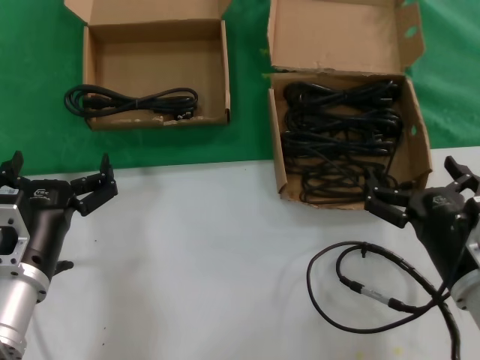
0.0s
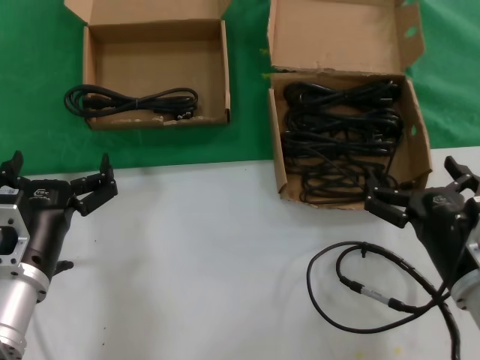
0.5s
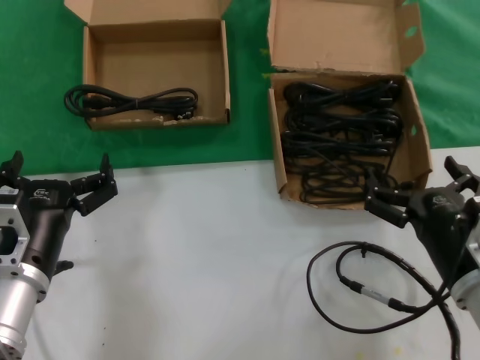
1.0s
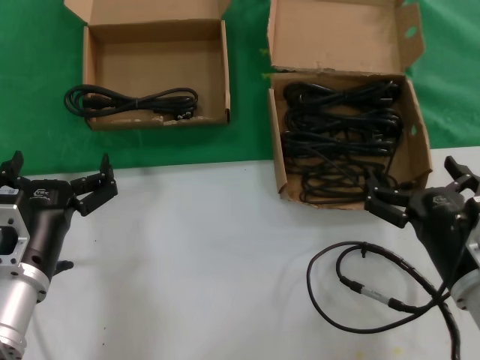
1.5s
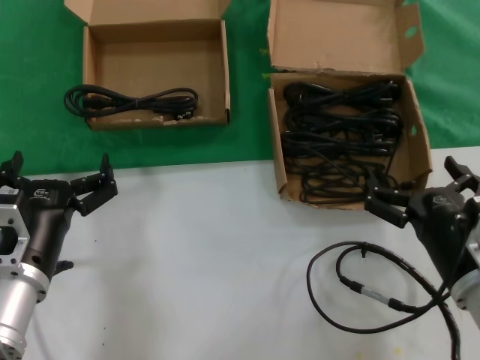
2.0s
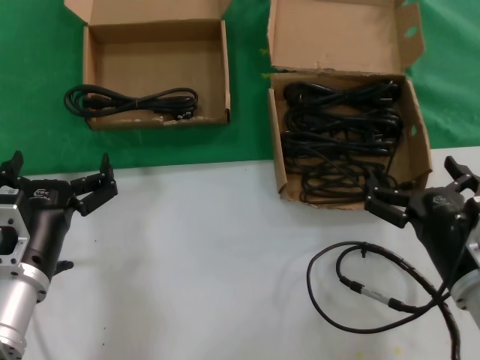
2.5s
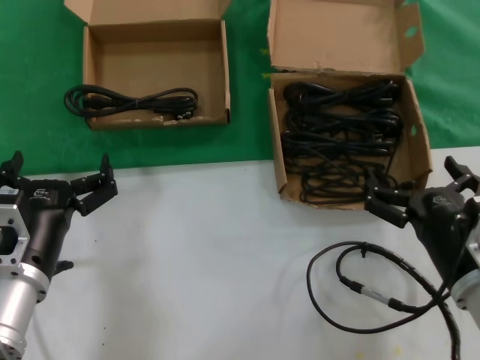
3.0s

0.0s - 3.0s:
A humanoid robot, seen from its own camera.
Task of the whole recording: take the parts from the box containing them and put them into an empty box.
0.0s - 3.0s: Both hands stay about where they are.

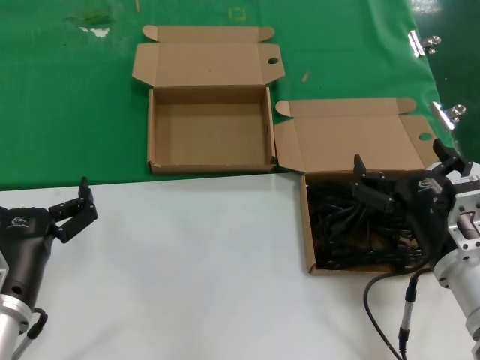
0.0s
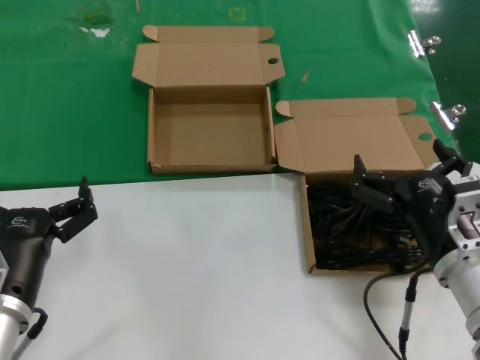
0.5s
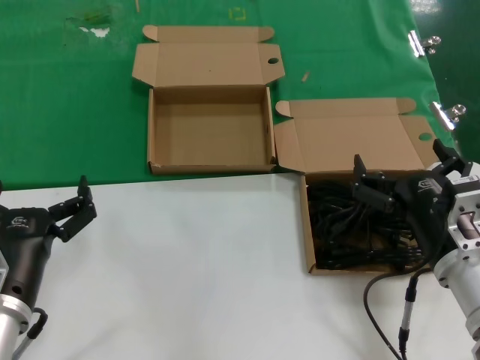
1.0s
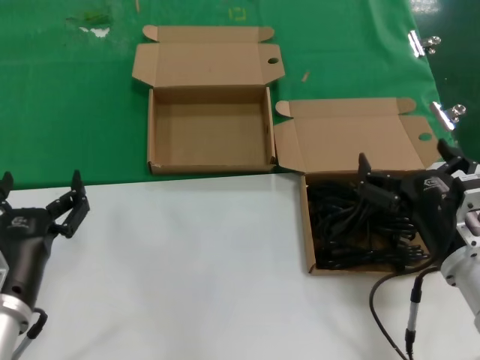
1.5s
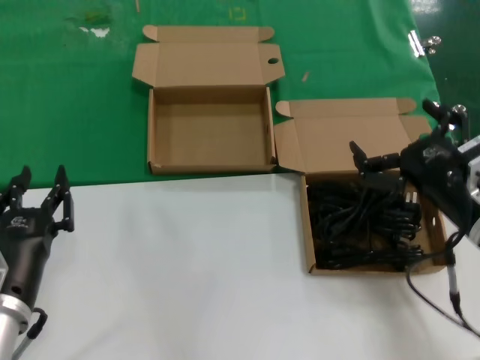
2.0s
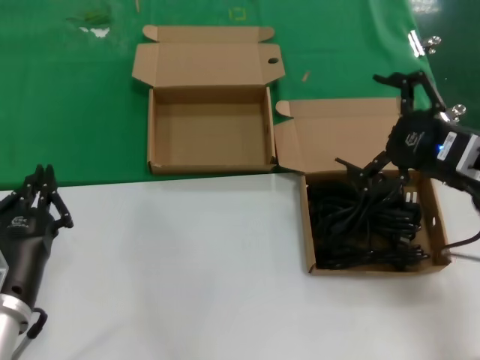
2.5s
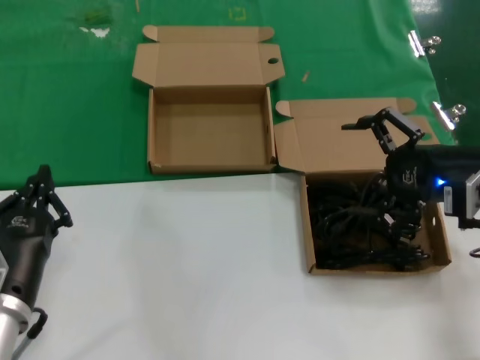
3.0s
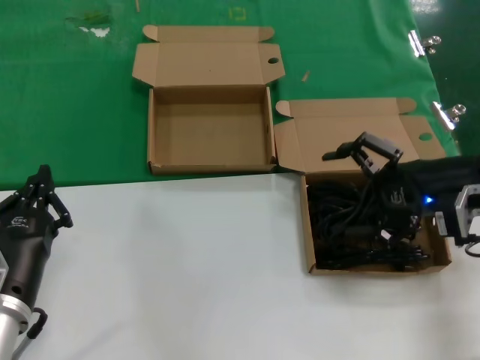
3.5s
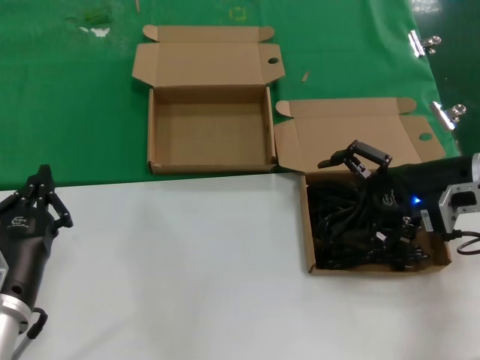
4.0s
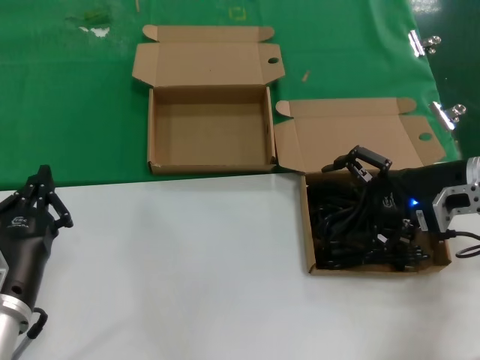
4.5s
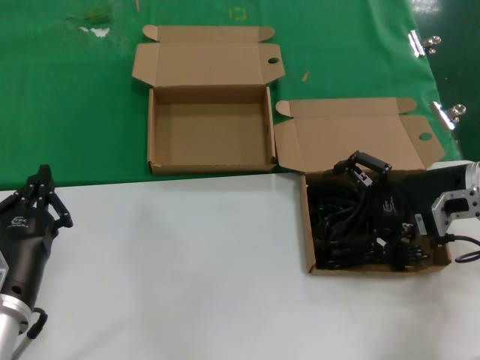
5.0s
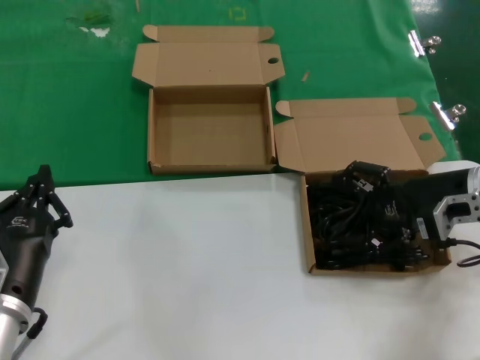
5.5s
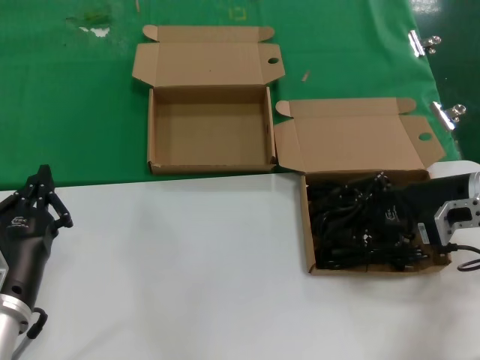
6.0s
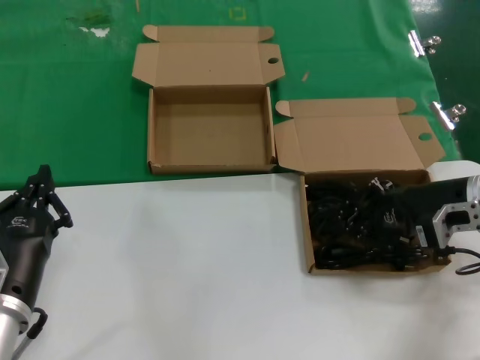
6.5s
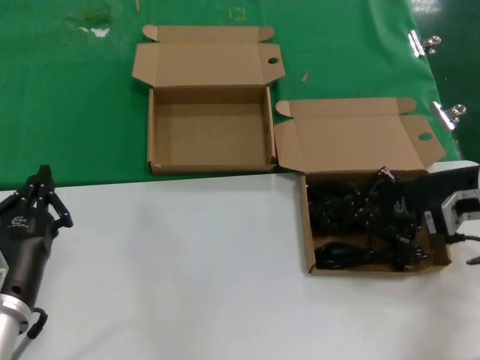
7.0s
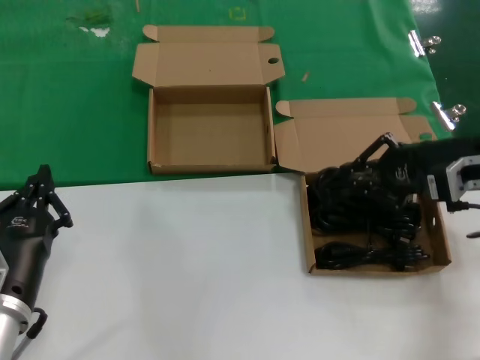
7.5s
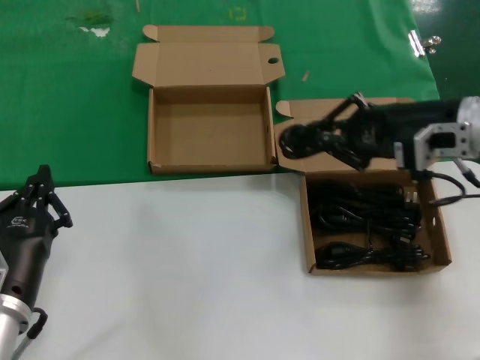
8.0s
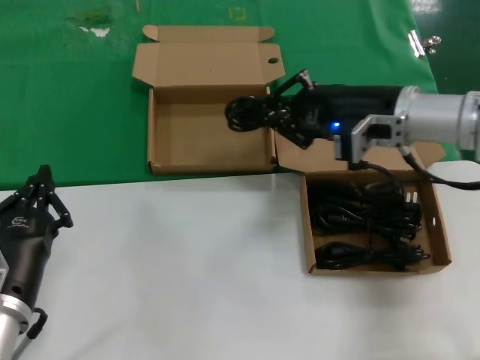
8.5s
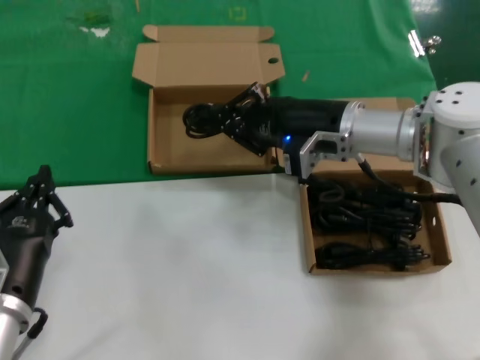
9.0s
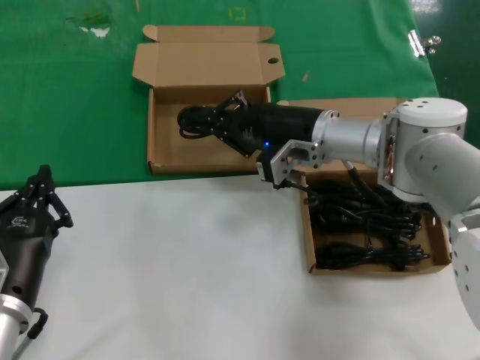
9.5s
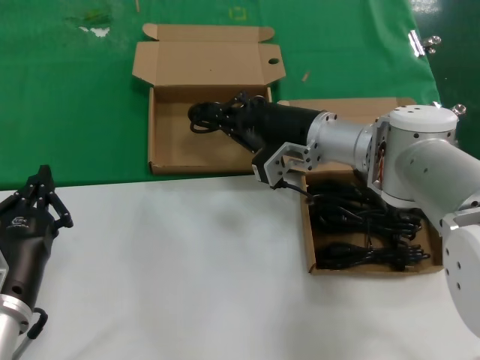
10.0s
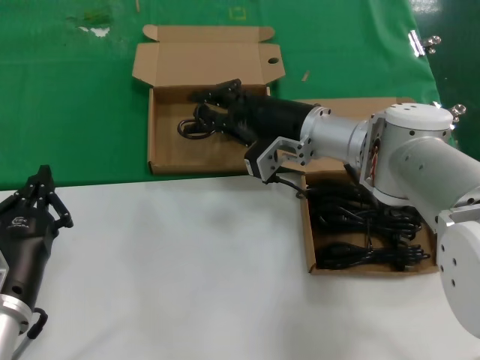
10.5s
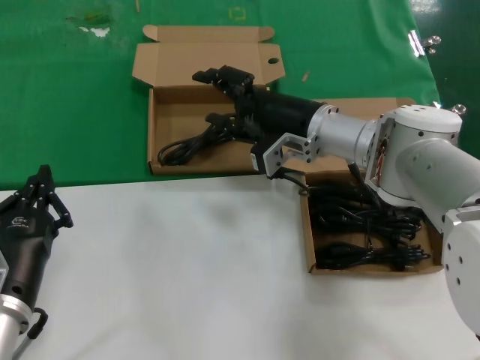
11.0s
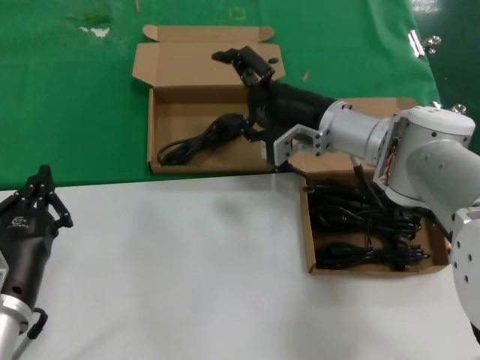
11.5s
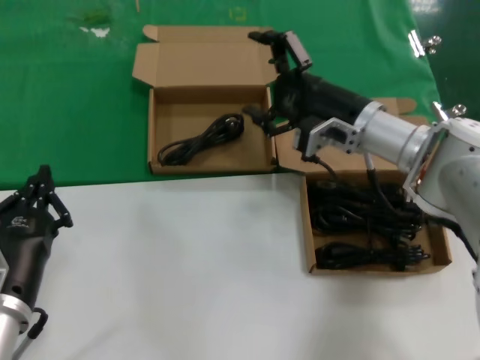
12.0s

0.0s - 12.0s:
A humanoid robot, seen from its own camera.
Task of the whole recording: take the parts from the box containing them and put them into an empty box.
Step, 0.0s - 6.0s: Grasp the data cable.
Step, 6.5s - 11.0s: Place the data cable in the another box.
0.0s - 2.0s: The right hand changes place by some 5 cm.
2.0s - 4.0s: The right hand shifts some 15 cm forward and to the right.
4.0s - 6.0s: The hands stay close to where they were, moving slightly.
6.0s - 8.0s: The right hand moves upward, some 10 cm.
8.0s - 10.0s: The right hand travels to the left, downward and forward by approximately 20 cm.
10.0s - 12.0s: The right hand moves to the right, about 5 cm.

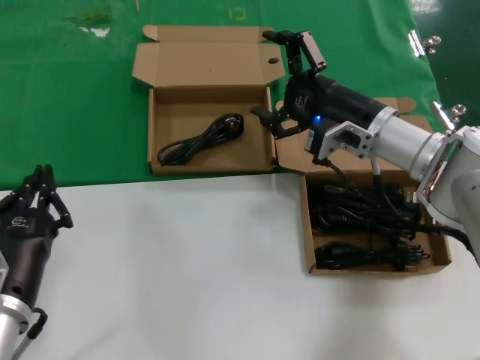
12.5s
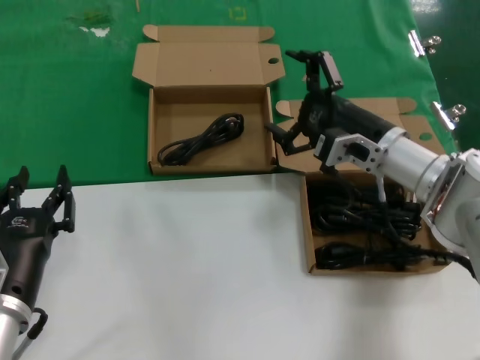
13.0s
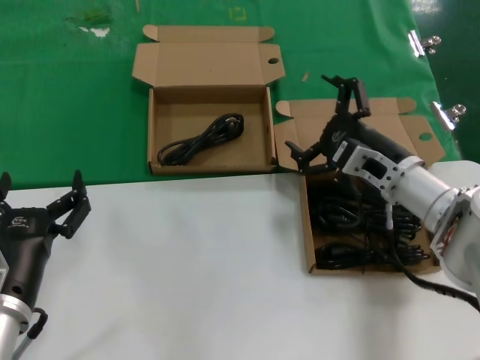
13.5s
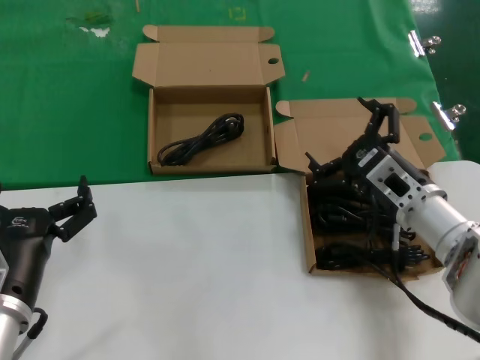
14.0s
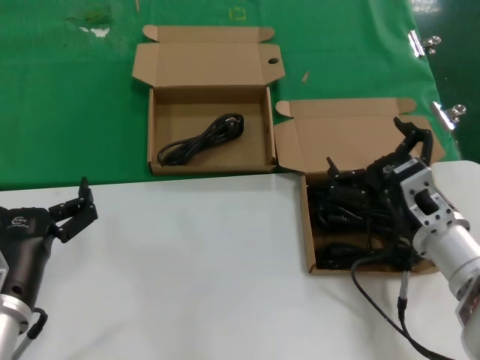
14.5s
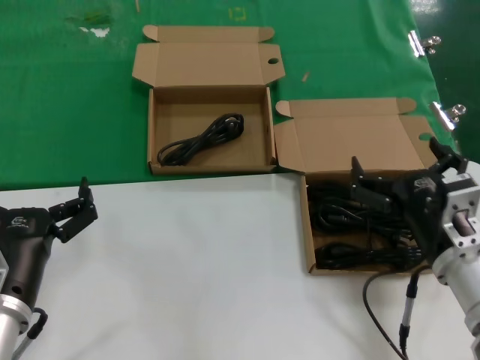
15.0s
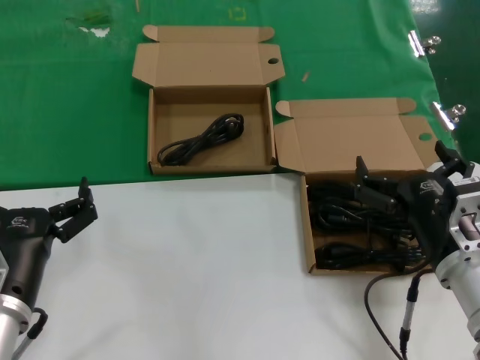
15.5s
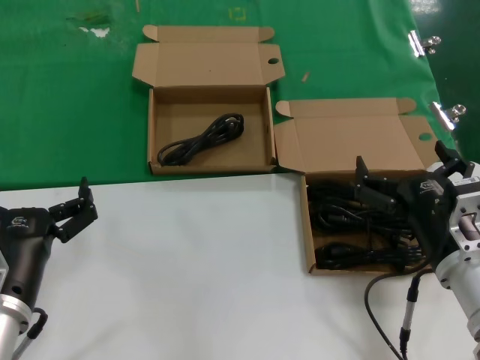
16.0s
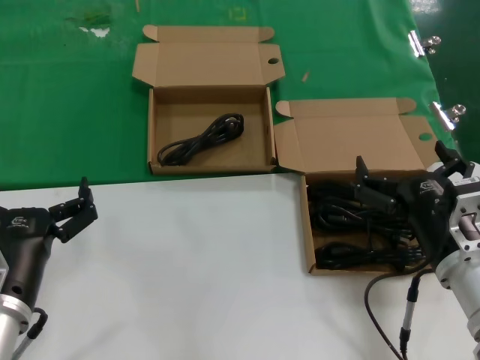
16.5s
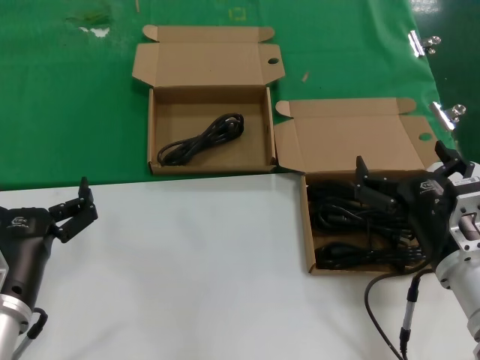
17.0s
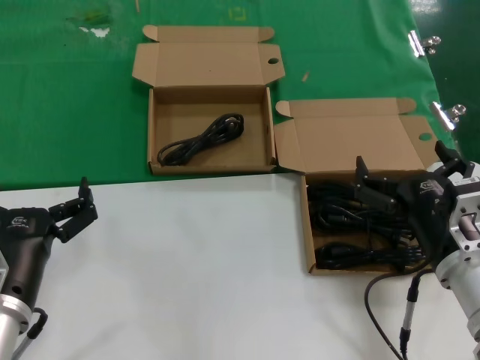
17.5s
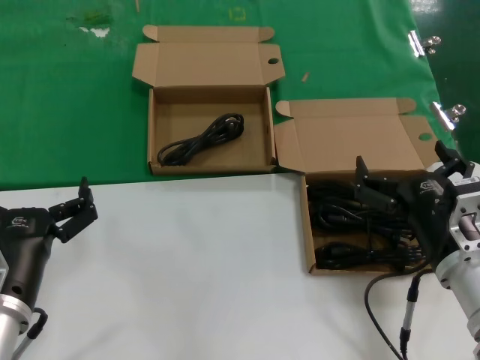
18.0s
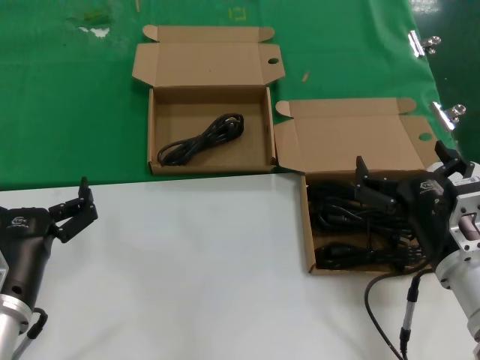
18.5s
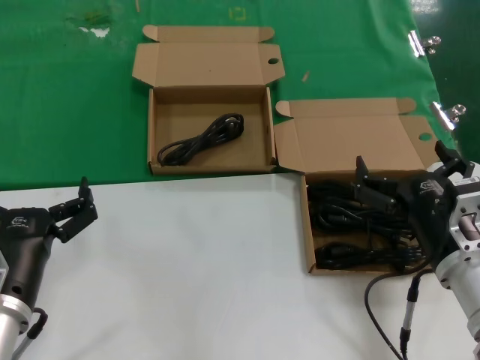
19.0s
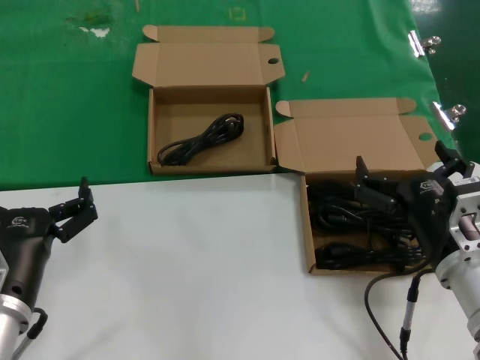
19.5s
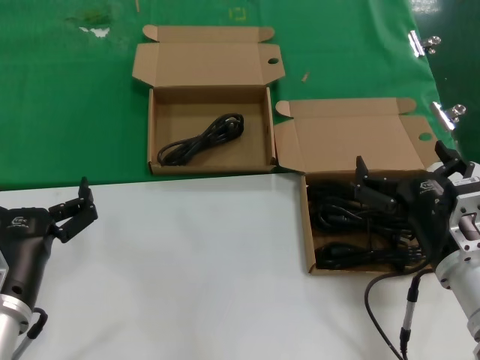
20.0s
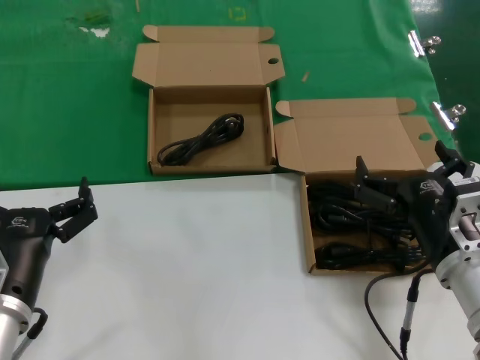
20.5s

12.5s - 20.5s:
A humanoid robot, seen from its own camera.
Task of the whole recording: take the parts from the box containing them and put them into an empty box.
12.5s - 14.5s: The right hand moves backward and downward, about 15 cm.
14.5s - 16.5s: The right hand heads backward, covering approximately 5 cm.
16.5s - 20.5s: Neither hand changes place.
